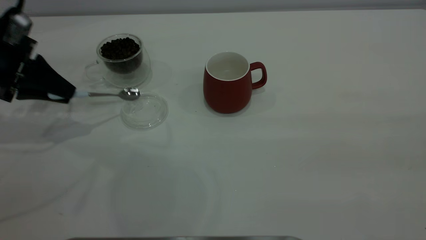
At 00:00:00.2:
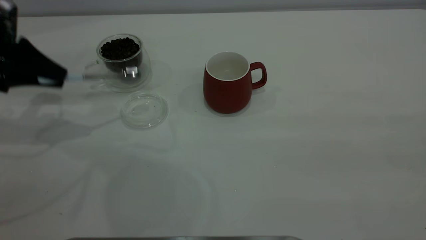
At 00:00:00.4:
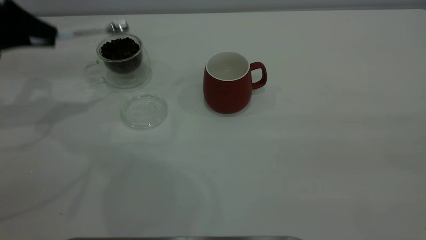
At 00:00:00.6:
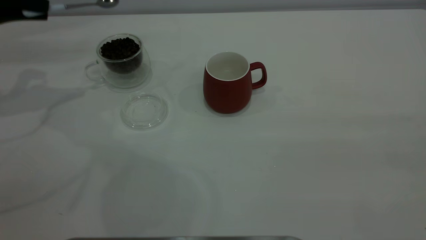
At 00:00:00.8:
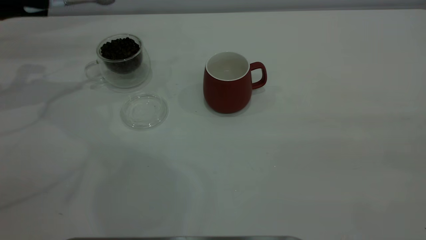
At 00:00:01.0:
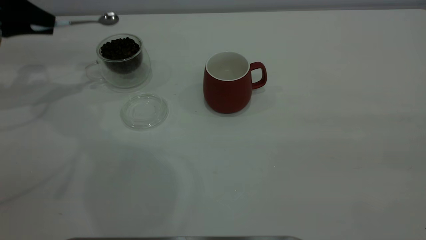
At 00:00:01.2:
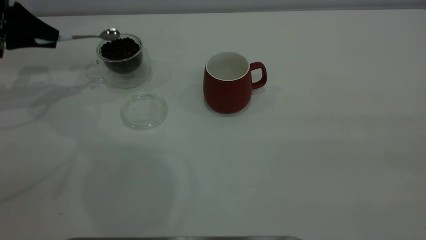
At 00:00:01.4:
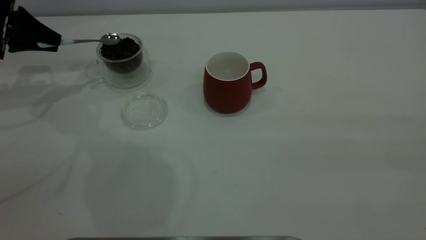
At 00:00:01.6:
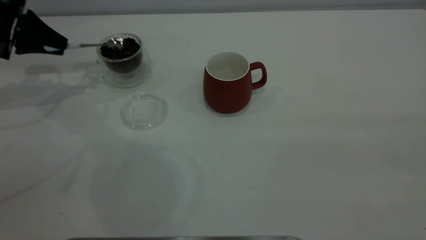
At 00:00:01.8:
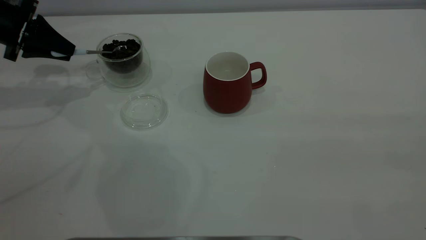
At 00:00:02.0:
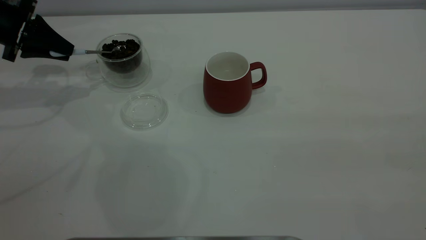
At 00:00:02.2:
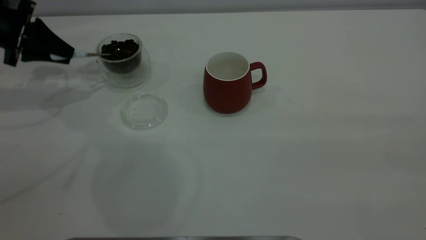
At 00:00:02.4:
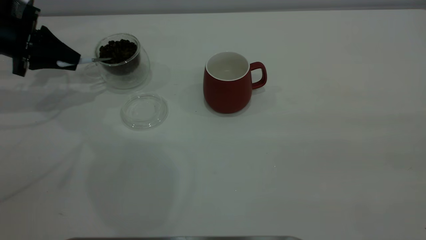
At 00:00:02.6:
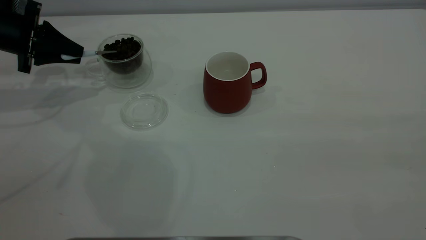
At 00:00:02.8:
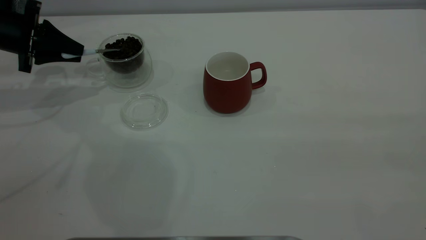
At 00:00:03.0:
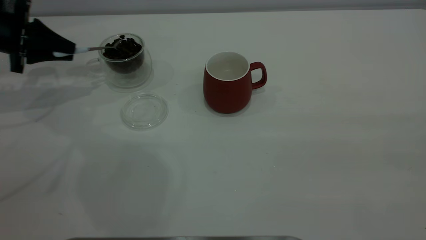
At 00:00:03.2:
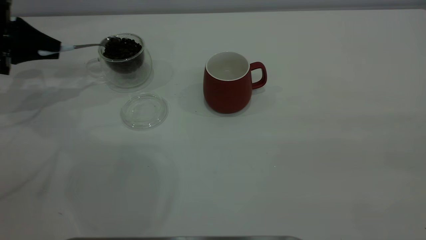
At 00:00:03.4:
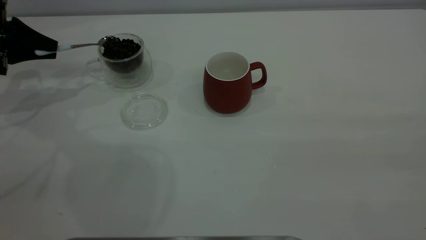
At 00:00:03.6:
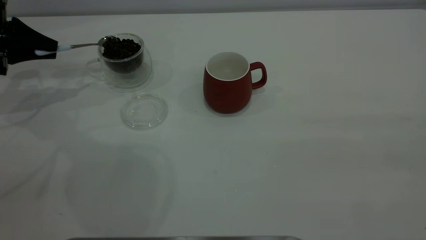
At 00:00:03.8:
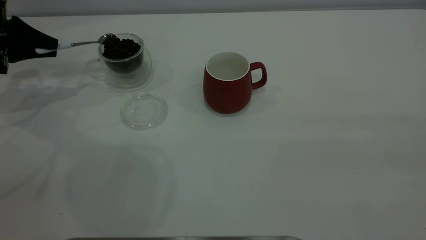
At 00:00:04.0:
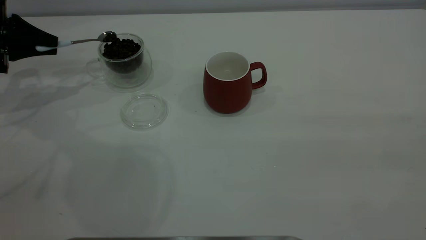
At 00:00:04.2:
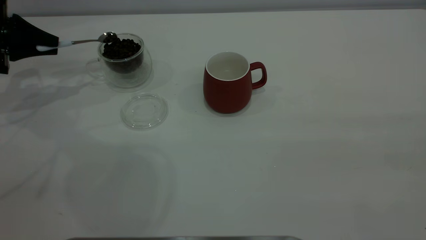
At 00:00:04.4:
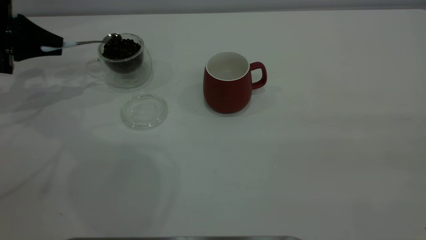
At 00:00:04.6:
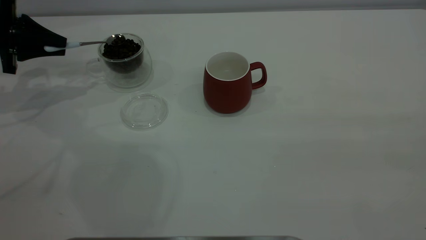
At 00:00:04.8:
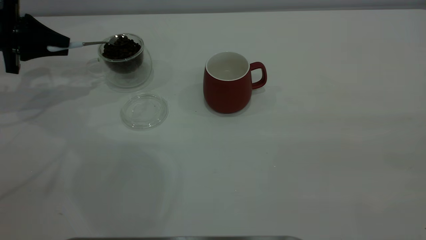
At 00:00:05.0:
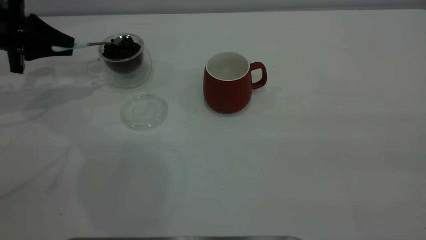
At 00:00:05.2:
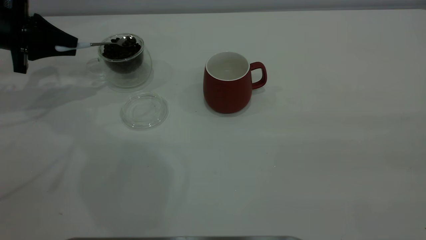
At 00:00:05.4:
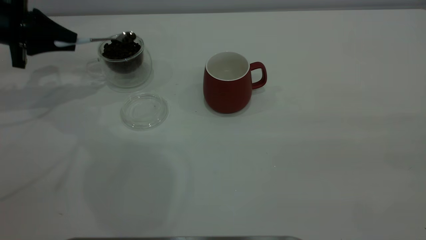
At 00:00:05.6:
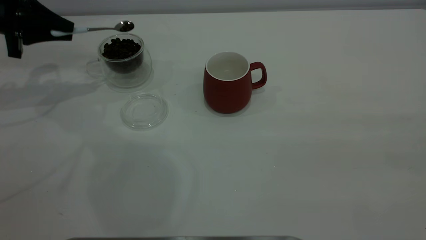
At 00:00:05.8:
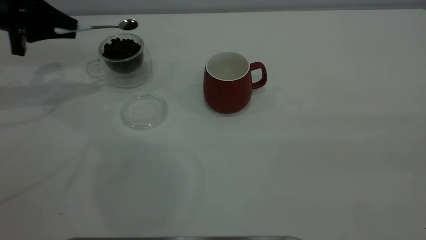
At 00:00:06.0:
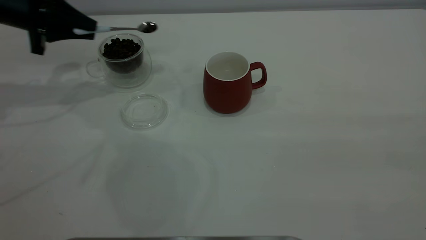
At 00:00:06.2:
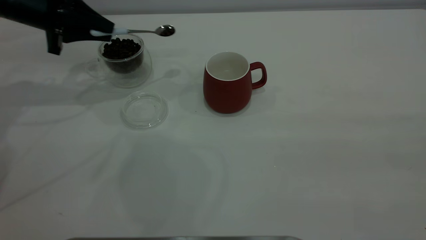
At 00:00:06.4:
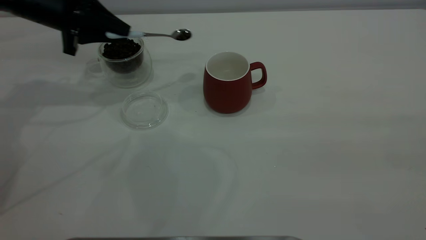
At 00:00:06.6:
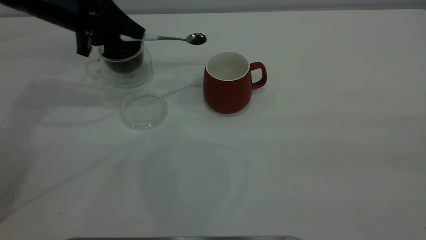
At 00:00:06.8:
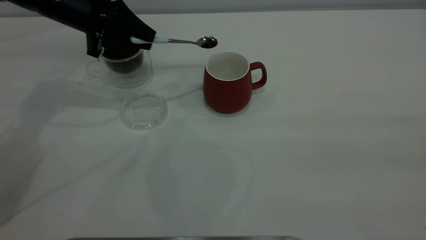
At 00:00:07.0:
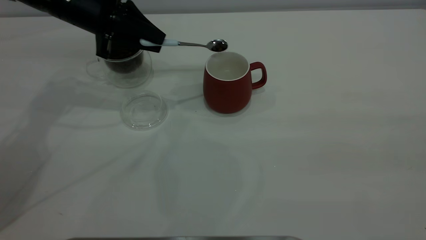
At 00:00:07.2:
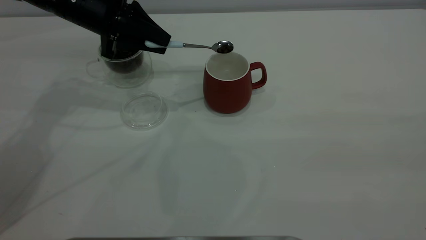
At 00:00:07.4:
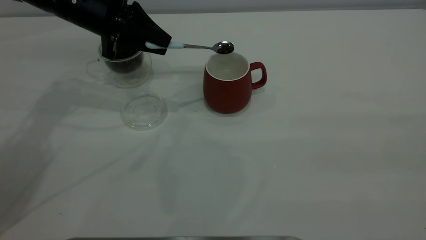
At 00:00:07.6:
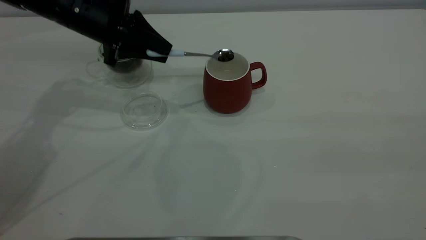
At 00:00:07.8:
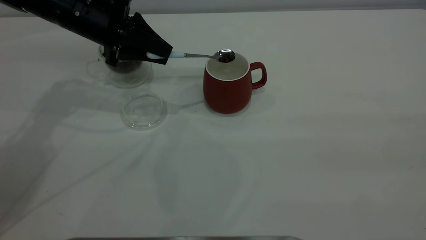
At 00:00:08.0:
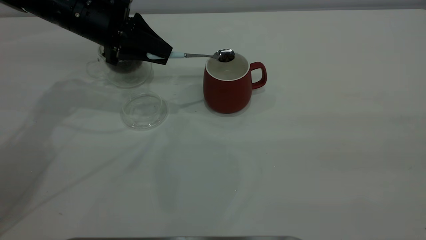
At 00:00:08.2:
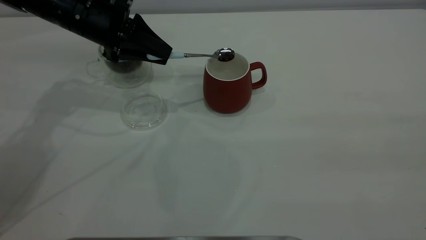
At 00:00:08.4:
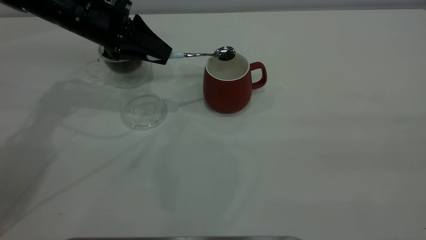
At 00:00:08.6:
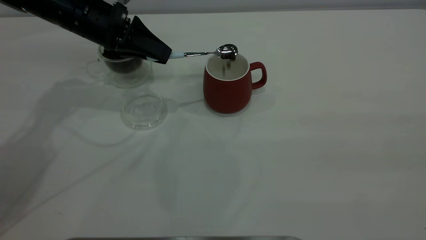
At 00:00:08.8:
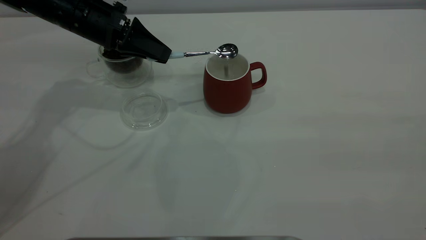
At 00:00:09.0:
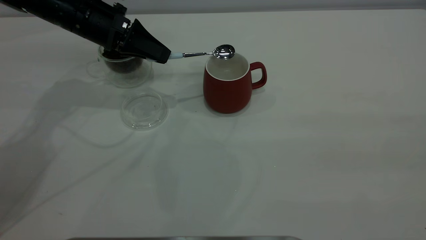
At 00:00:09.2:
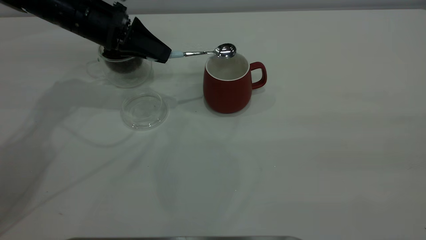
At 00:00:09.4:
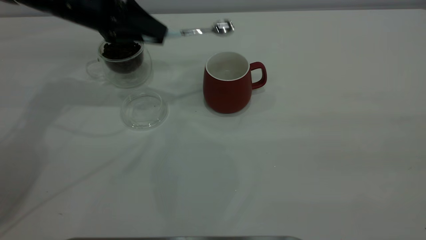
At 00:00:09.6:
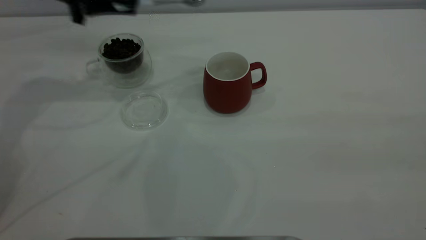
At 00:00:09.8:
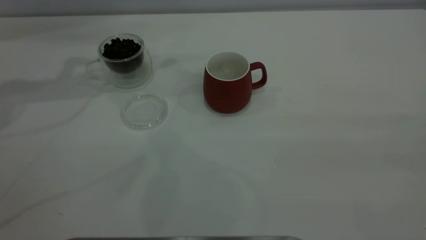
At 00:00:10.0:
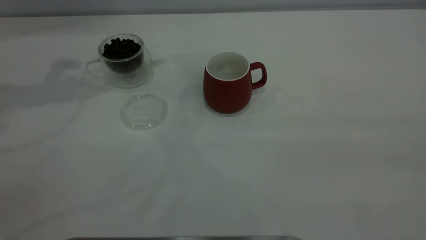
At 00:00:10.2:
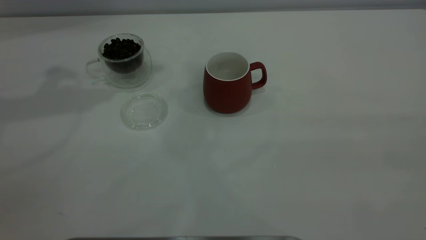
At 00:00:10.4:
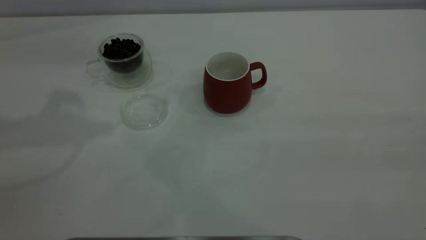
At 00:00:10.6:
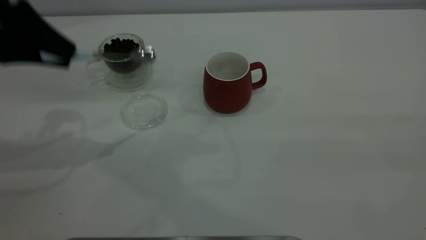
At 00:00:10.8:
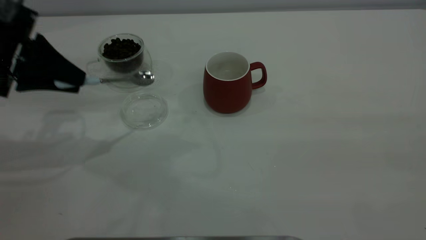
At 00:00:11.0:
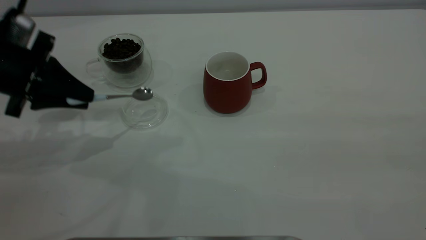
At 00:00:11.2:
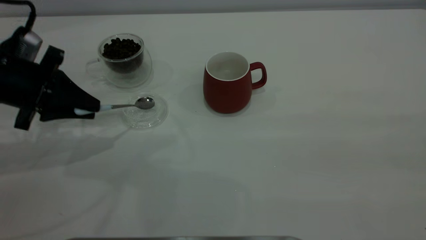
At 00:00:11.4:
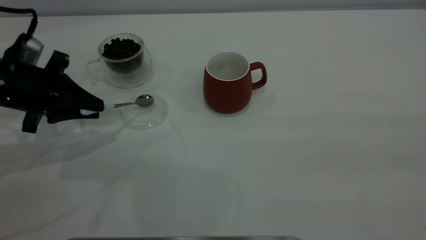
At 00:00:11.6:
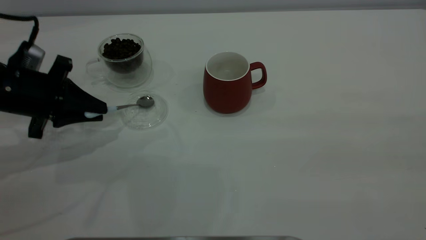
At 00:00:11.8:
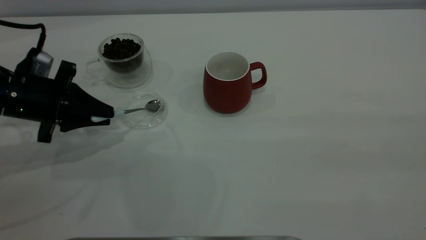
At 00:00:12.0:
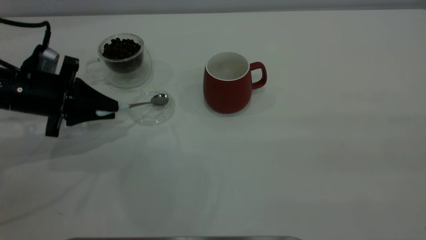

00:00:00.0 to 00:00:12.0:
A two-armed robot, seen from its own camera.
Task of the whole recording: the right gripper place the red cup in the center of the table, the left gripper take the blue spoon from the cup lid and scoop out the coffee beans from the coffee cup and put them into the red cup, the left gripper put the spoon back into the cup lid.
Step, 00:00:00.2 to 00:00:09.2: Scoop a spoonful of beans into the cup.
00:00:00.0 to 00:00:01.6: The left gripper is displaced forward by some 10 cm.
00:00:01.6 to 00:00:03.0: There are only small adjustments of the grippers.
00:00:03.0 to 00:00:04.4: The grippers move only a little.
00:00:04.4 to 00:00:06.0: The left gripper moves to the right, about 10 cm.
00:00:06.0 to 00:00:07.6: The left gripper travels to the right by approximately 10 cm.
00:00:09.0 to 00:00:10.4: The left gripper goes about 20 cm upward, backward and to the left.
00:00:10.4 to 00:00:12.0: The left gripper travels downward by about 20 cm.

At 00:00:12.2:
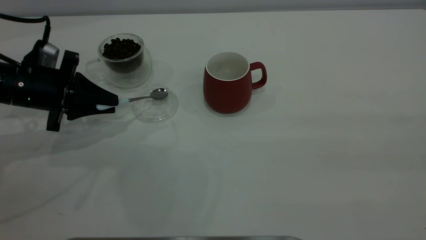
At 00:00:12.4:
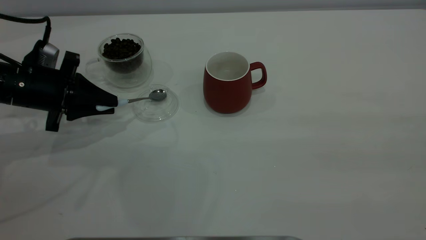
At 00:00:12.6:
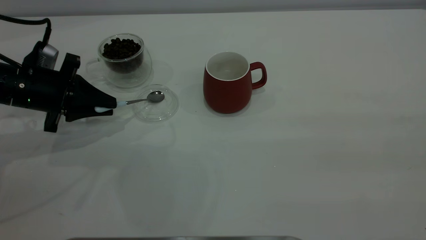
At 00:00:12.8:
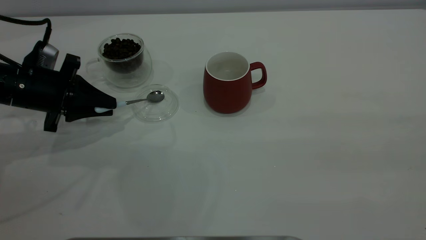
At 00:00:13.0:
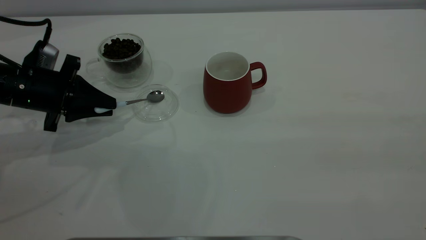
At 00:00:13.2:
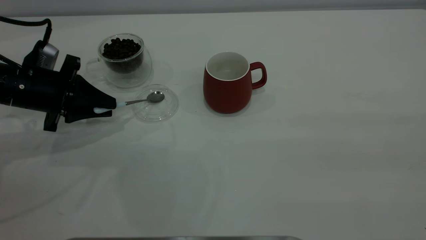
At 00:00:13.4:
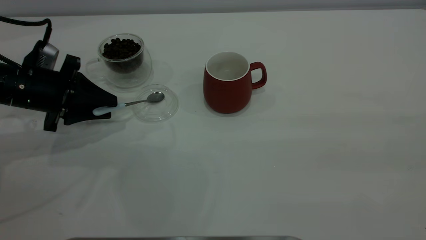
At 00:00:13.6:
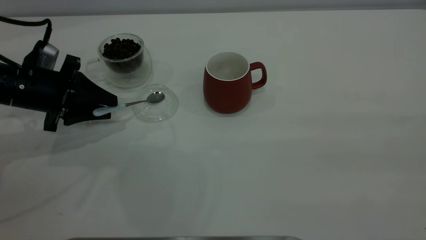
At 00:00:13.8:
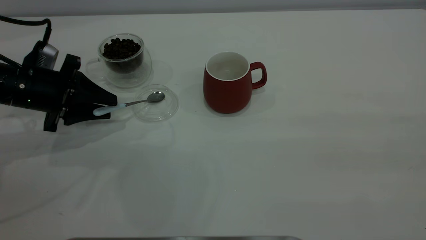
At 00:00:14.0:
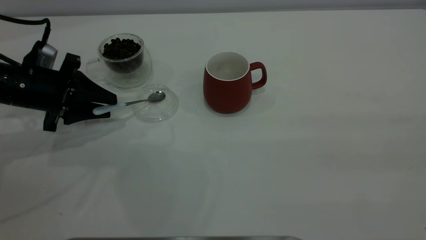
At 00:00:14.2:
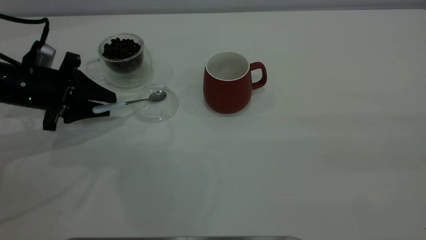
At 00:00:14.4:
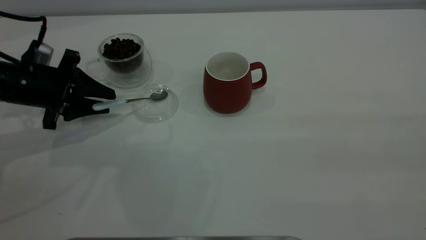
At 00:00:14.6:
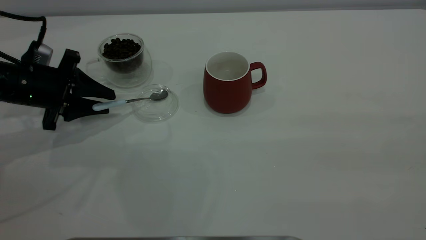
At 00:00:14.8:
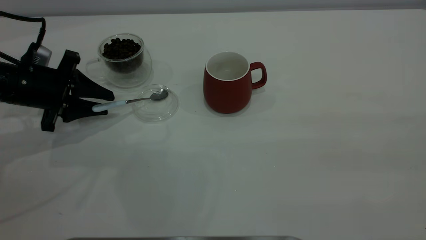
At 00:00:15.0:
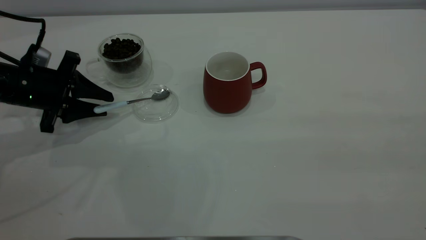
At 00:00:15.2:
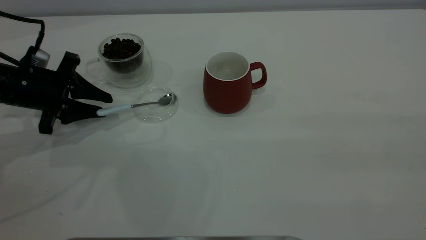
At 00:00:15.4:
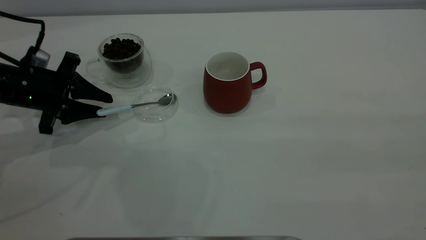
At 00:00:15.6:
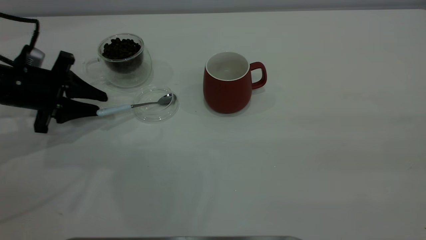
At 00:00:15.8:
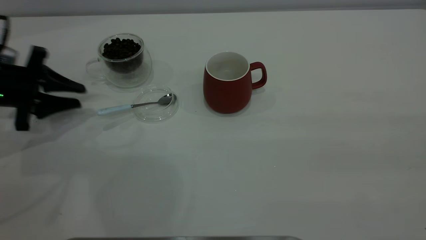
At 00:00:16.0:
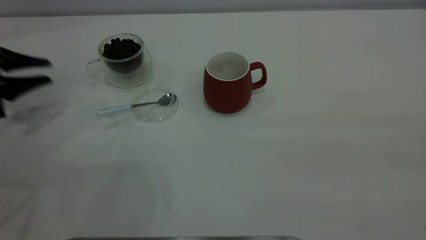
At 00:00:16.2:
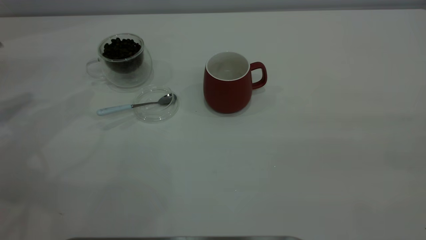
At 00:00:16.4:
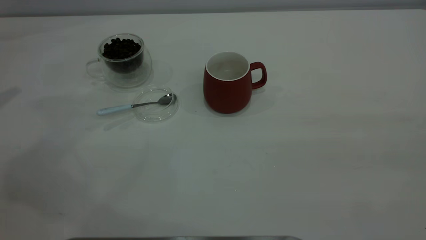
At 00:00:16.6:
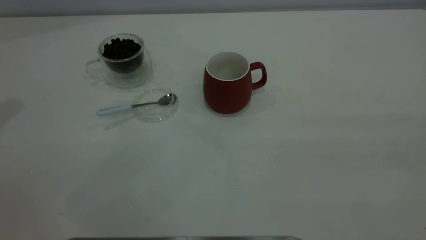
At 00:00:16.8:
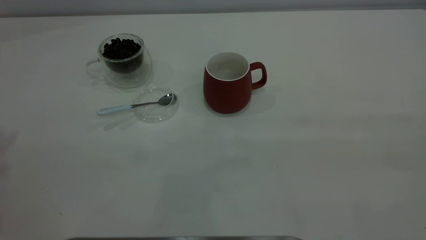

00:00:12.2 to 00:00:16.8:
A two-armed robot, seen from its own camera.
Task of the whole recording: the right gripper place the red cup in the center of the table, the left gripper take the blue spoon from the cup lid and scoop out the coffee beans from the coffee cup and put them into the red cup, the left gripper put the spoon back into the cup lid.
Step, 00:00:12.2 to 00:00:15.6: Place the spoon back in its original place.
00:00:12.2 to 00:00:13.8: The left gripper opens its fingers.
00:00:13.8 to 00:00:15.2: The grippers make only small movements.
00:00:15.2 to 00:00:16.8: The left gripper shifts approximately 40 cm upward.
